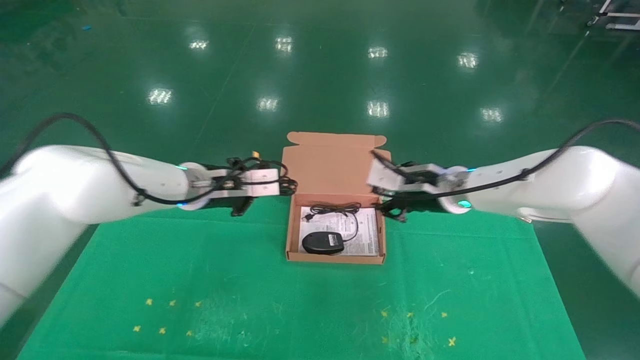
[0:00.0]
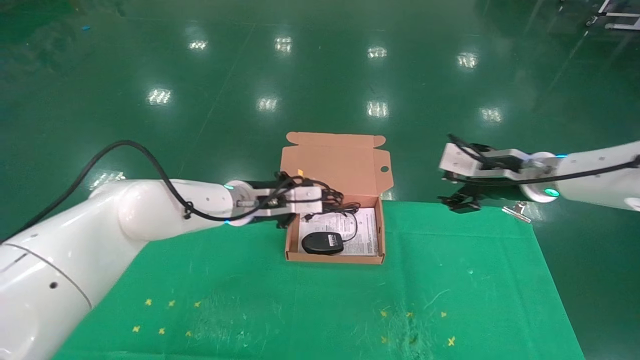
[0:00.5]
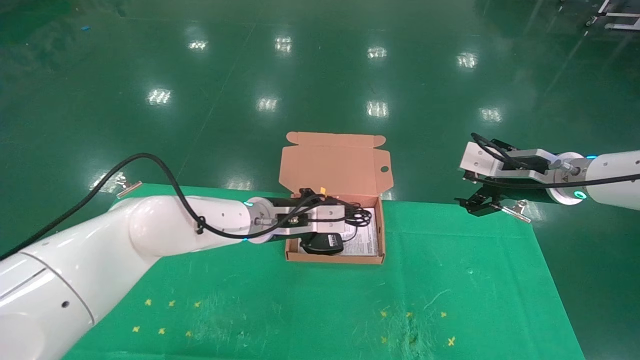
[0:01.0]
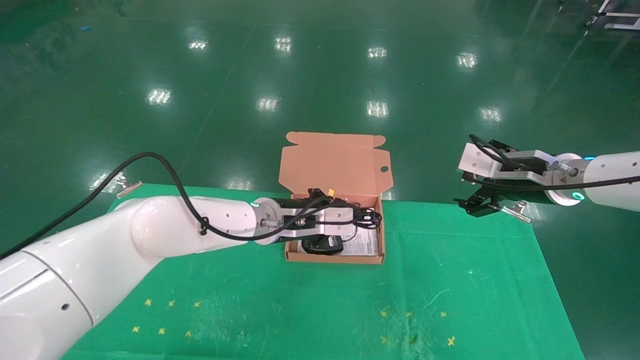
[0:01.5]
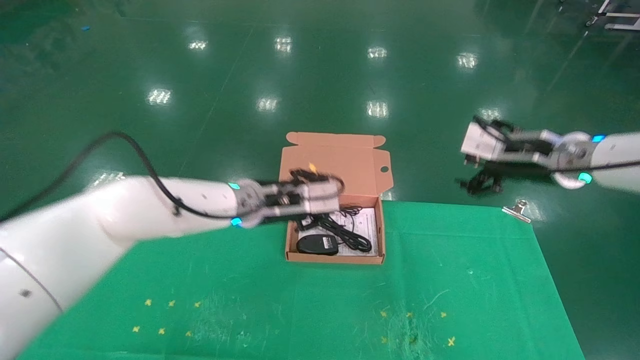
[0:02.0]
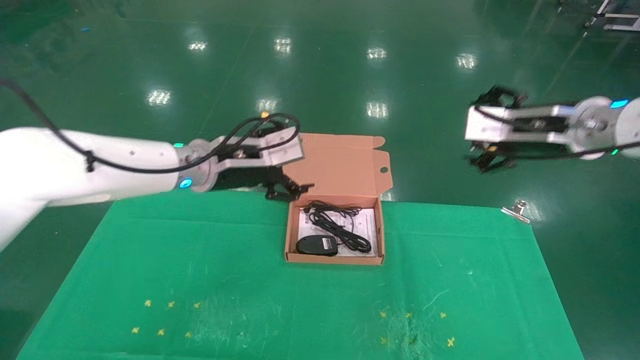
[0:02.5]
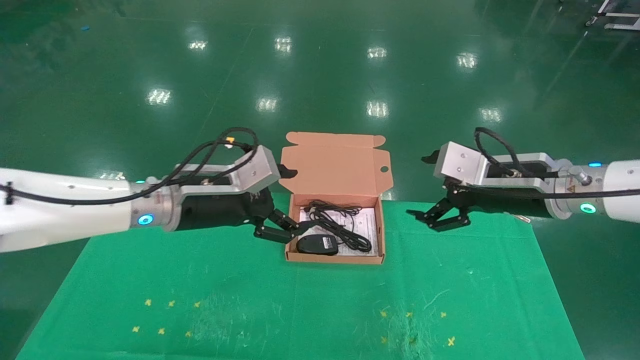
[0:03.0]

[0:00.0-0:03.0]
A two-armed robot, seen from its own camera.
Task of the whole recording: grasp data cable left put into box grasp mouse right put into box.
0:00.0 to 0:01.5: The right gripper heads to the right, covering about 15 cm, and opens up. Meanwhile the left gripper goes approximately 10 cm to the right and downward.
0:01.5 to 0:03.0: The left gripper shifts about 15 cm to the left, backward and upward, and opens, while the right gripper shifts approximately 10 cm backward and to the left.
